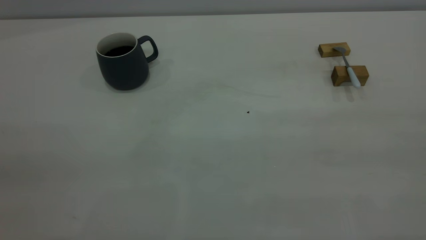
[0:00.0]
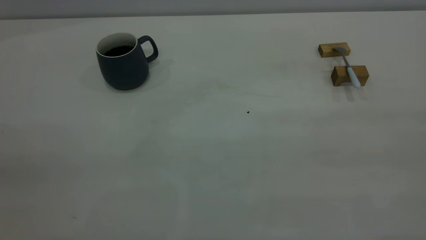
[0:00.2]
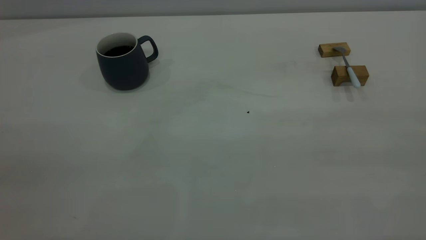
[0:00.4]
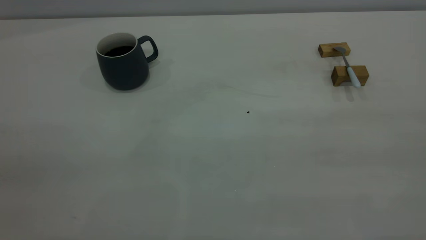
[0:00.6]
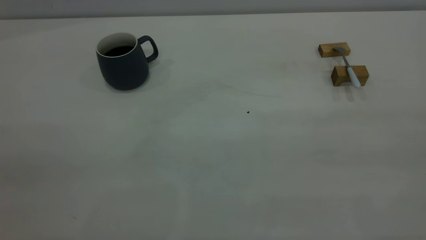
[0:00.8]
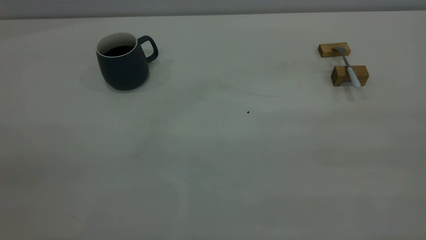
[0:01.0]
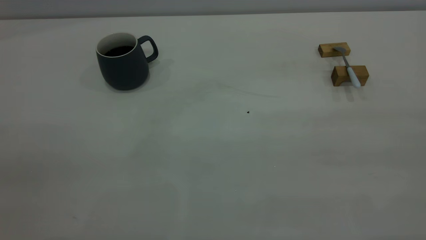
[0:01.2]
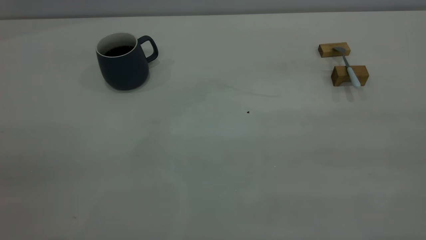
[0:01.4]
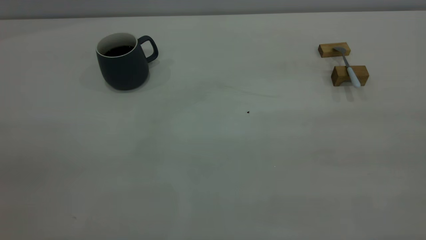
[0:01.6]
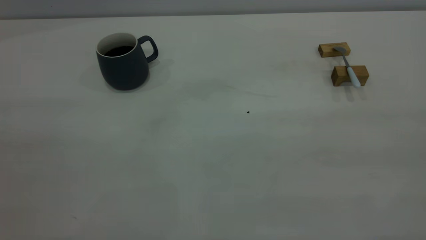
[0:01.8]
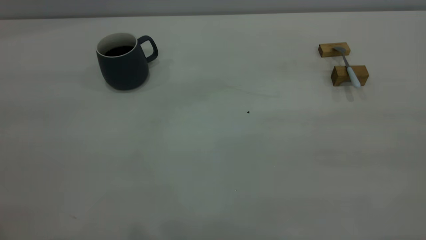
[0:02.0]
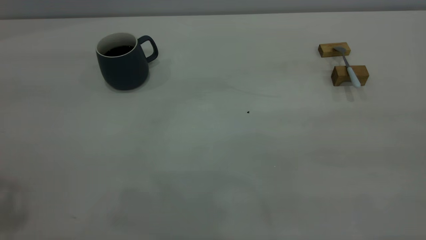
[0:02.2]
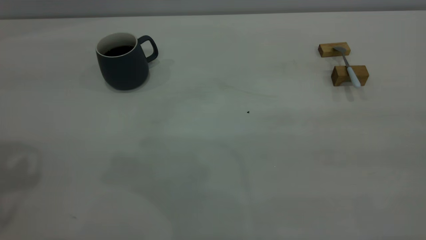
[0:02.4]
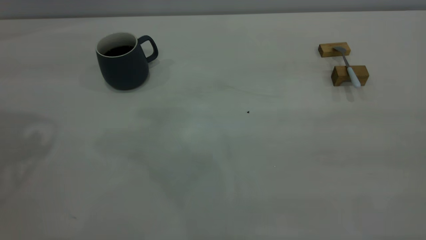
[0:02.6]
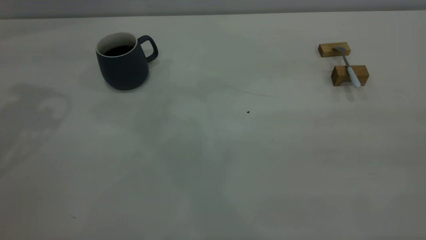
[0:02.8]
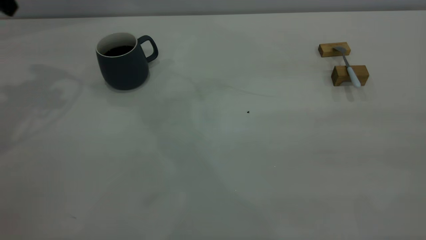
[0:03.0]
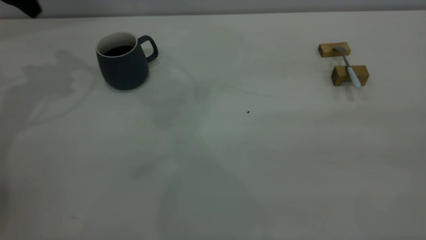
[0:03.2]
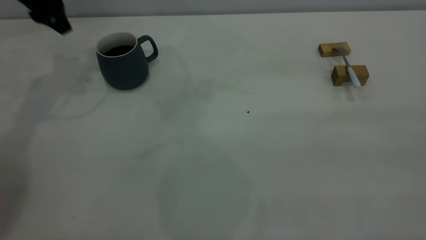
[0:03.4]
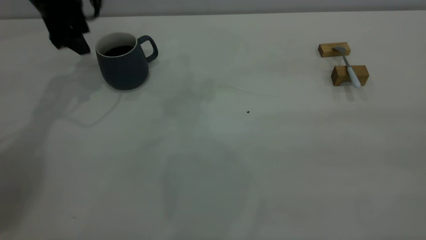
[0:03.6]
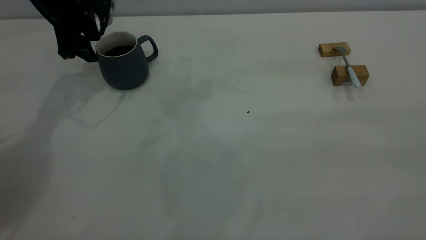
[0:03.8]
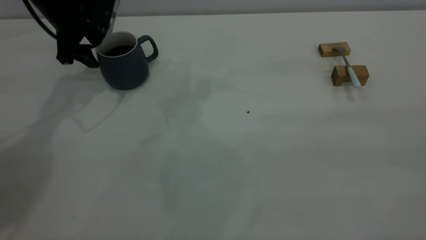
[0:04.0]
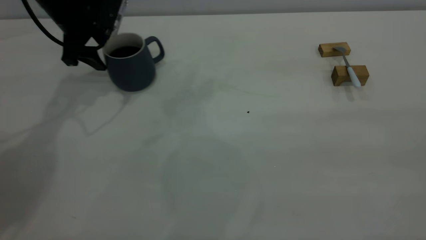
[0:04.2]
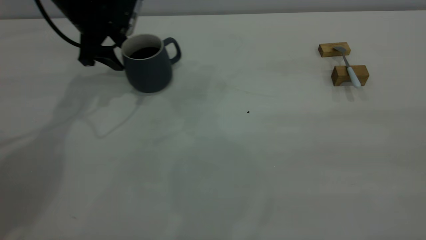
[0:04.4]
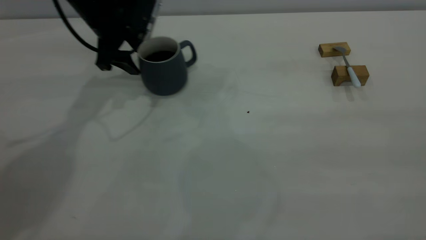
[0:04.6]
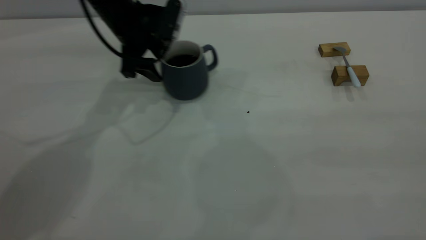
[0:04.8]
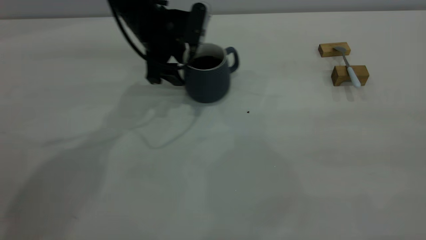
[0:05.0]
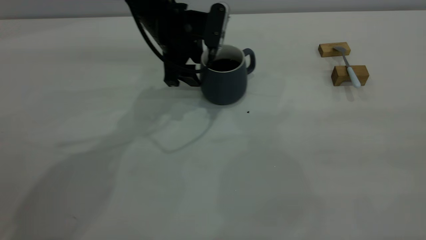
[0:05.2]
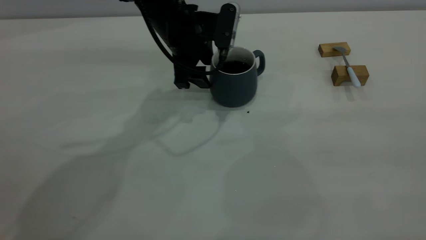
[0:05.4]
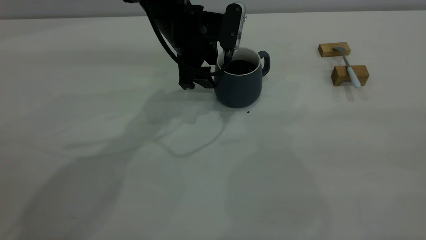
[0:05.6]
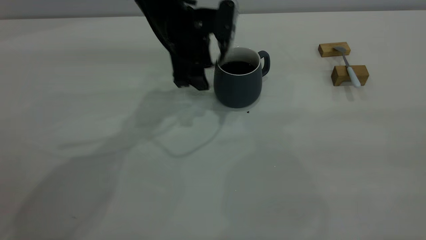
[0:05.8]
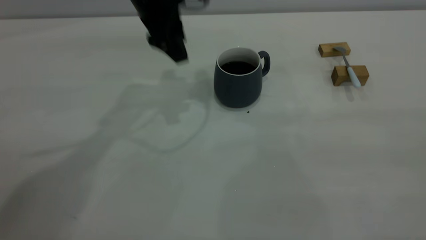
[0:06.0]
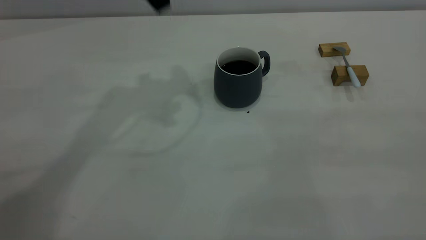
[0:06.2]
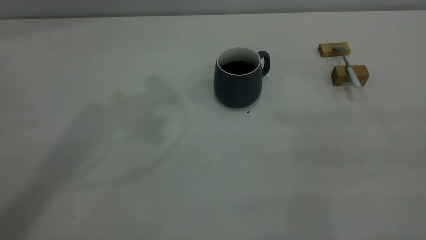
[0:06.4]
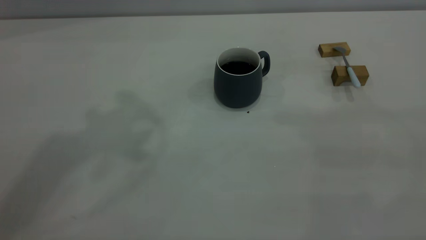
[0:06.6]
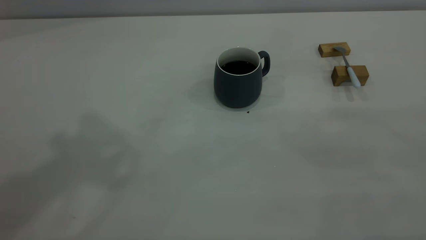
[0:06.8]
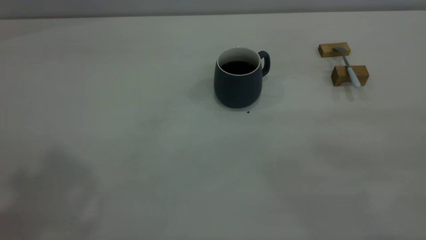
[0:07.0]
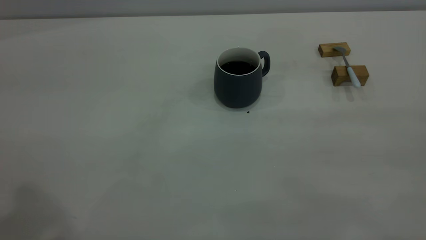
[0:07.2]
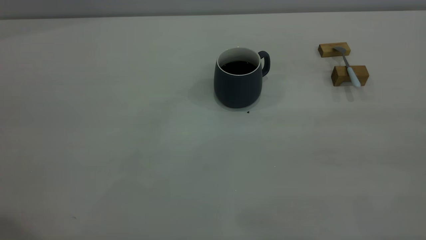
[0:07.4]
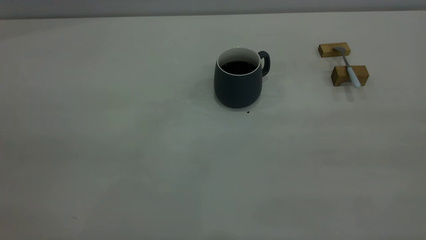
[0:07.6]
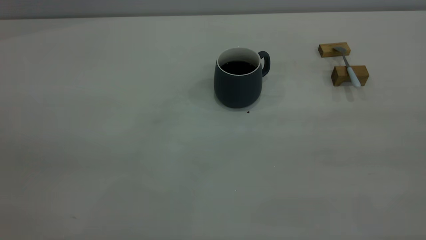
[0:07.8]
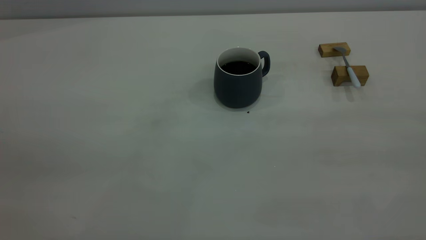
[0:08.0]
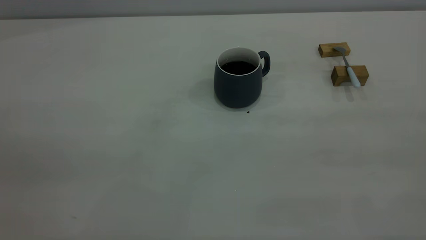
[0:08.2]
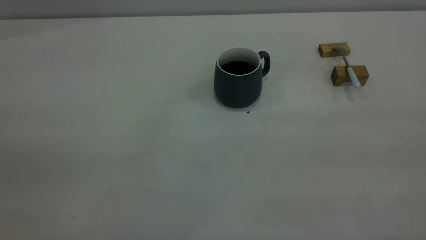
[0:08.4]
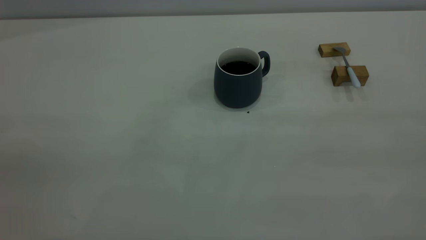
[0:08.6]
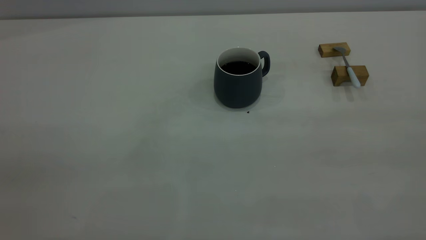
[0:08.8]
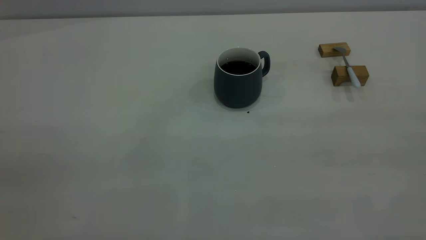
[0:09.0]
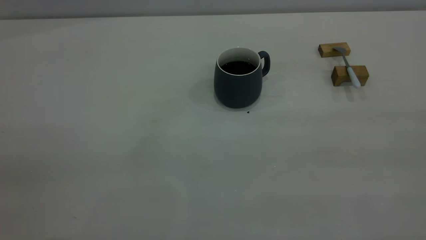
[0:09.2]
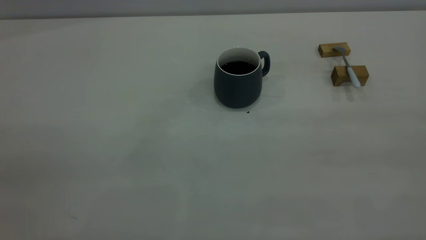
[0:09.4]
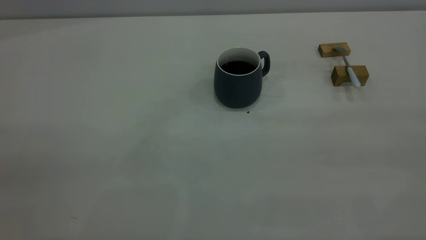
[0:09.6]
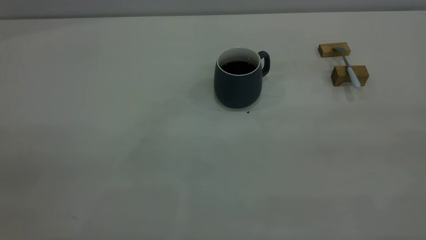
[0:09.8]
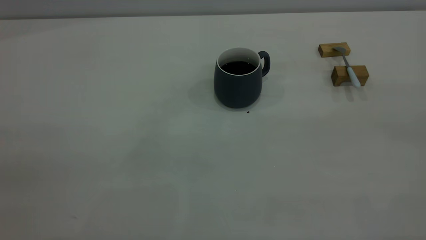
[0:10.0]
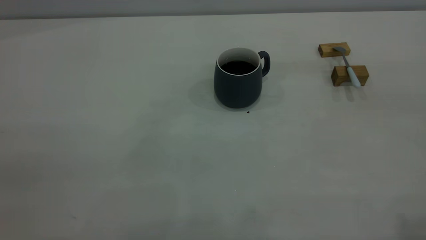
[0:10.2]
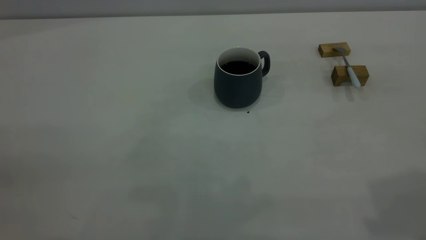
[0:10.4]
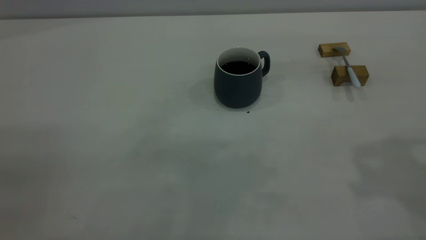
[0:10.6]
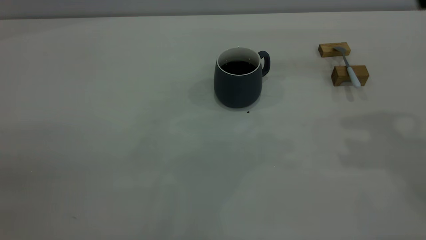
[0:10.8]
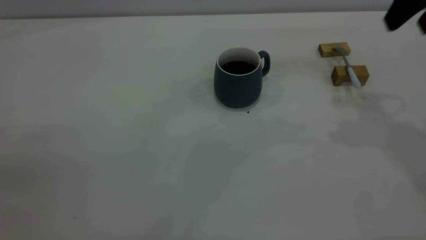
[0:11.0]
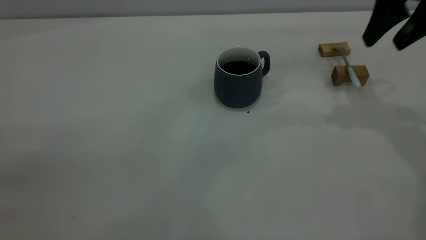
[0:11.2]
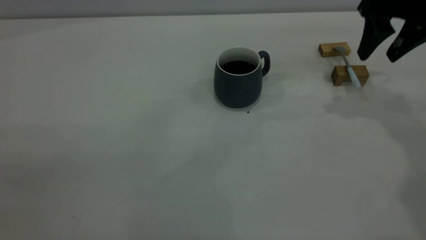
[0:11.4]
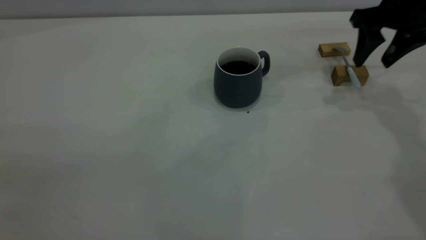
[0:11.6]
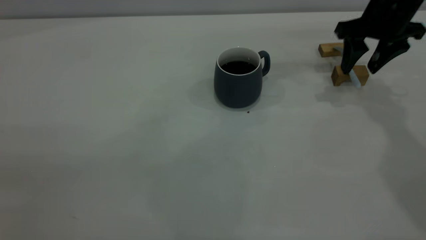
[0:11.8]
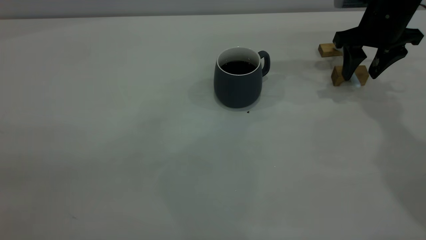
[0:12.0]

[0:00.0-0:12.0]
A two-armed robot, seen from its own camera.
Step, 0:00.0 to 0:05.8: Move the cup with coffee to the center of view.
0:00.0 to 0:01.6: Both grippers stay put.
0:03.0 to 0:04.4: The left gripper is displaced downward, to the right and forward by roughly 20 cm.
0:04.4 to 0:06.0: The left gripper goes some 15 cm to the right and upward.
0:06.0 to 0:07.6: The left gripper shifts approximately 40 cm backward, to the left and upward.
0:10.4 to 0:12.0: The right gripper goes roughly 35 cm forward and downward.

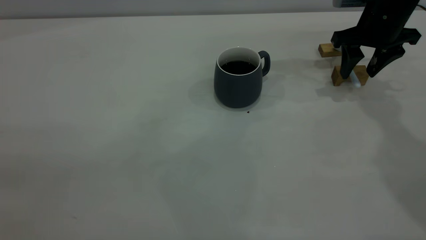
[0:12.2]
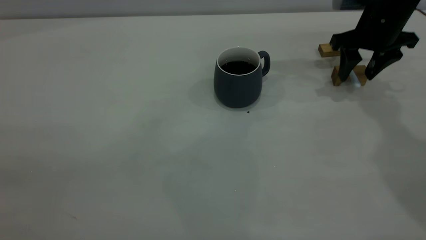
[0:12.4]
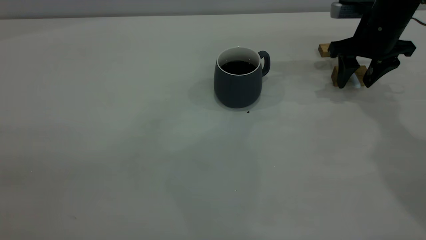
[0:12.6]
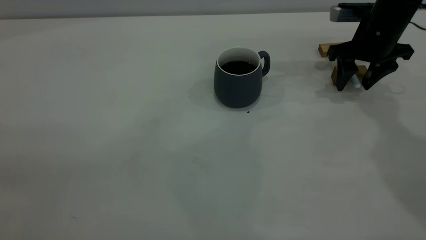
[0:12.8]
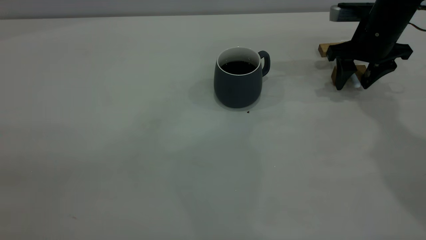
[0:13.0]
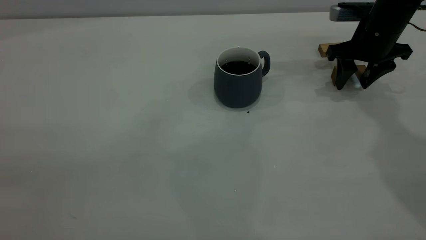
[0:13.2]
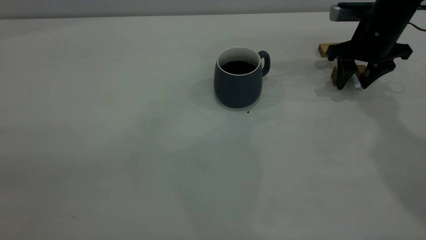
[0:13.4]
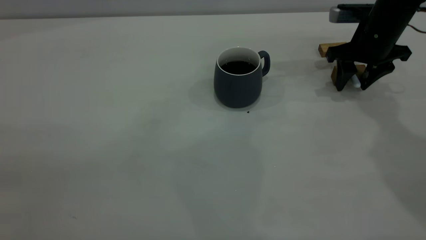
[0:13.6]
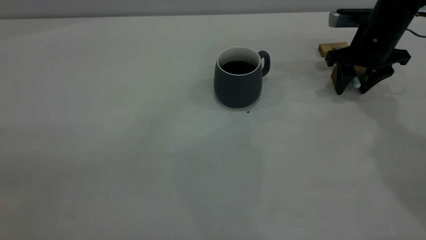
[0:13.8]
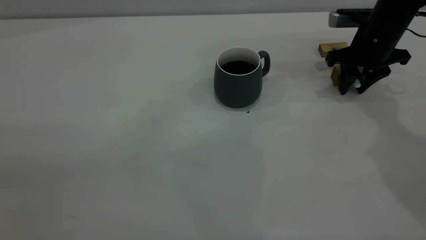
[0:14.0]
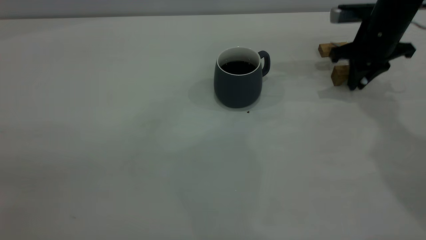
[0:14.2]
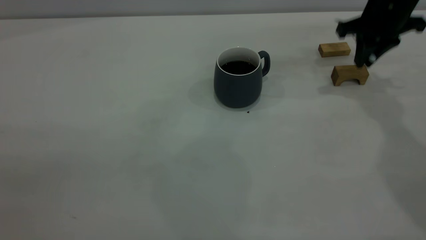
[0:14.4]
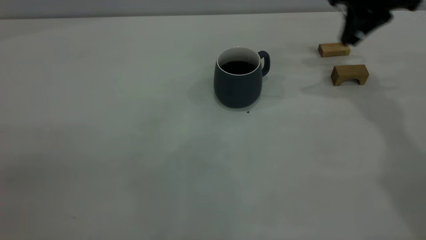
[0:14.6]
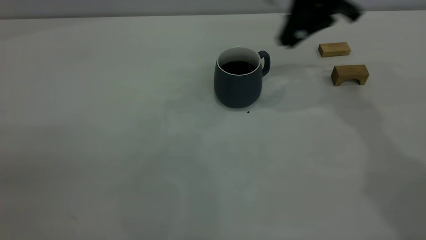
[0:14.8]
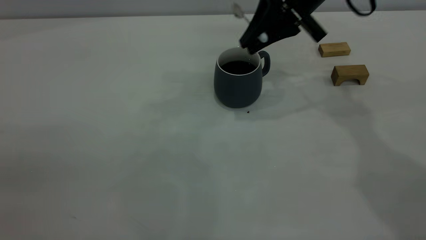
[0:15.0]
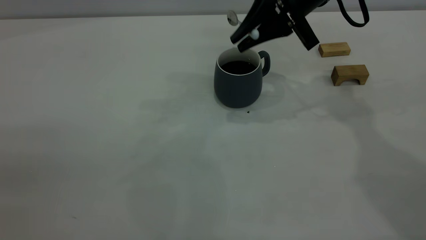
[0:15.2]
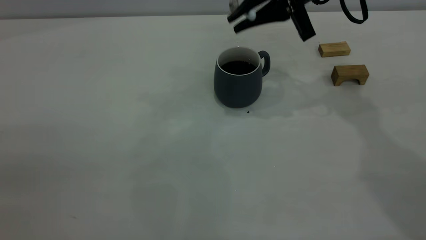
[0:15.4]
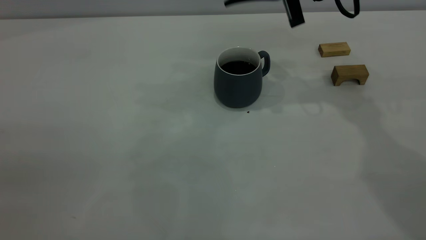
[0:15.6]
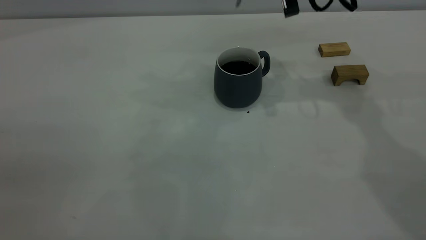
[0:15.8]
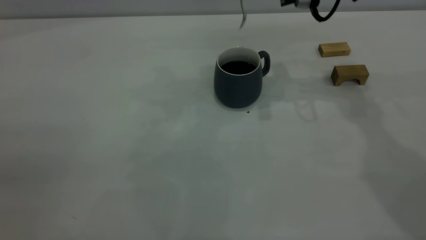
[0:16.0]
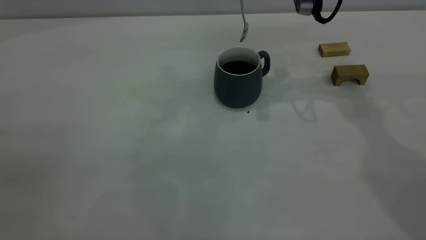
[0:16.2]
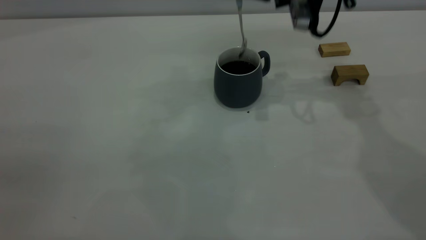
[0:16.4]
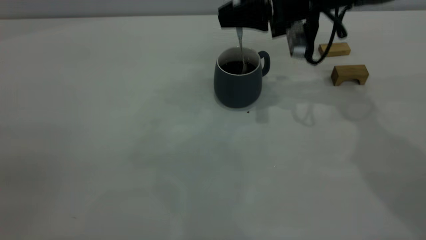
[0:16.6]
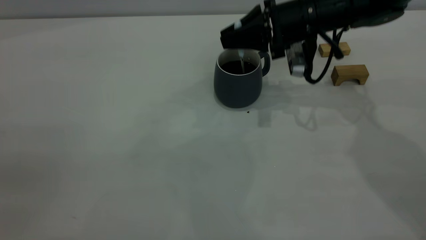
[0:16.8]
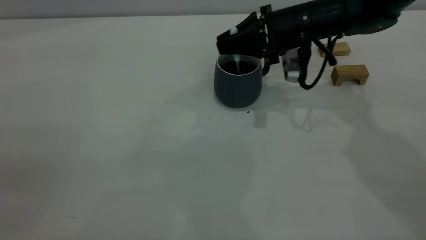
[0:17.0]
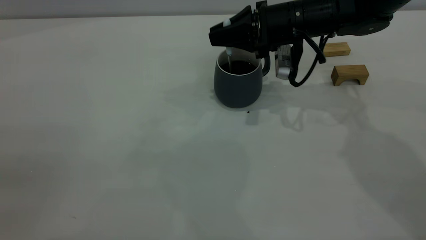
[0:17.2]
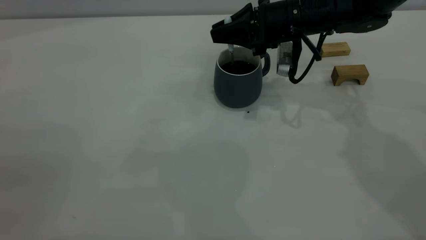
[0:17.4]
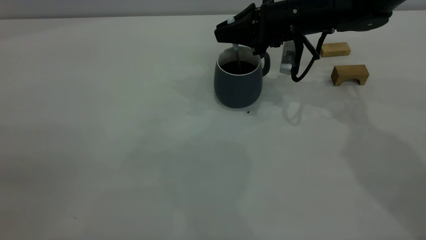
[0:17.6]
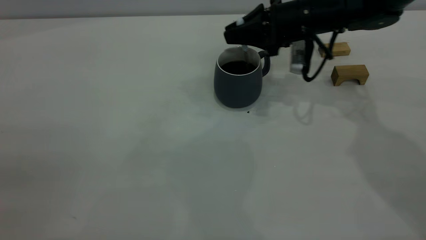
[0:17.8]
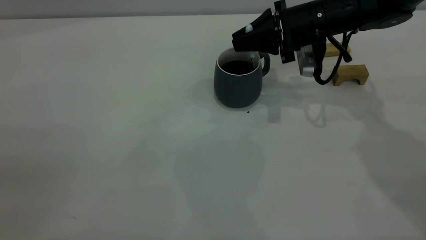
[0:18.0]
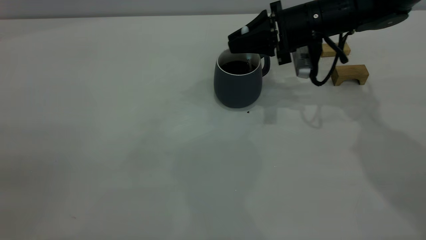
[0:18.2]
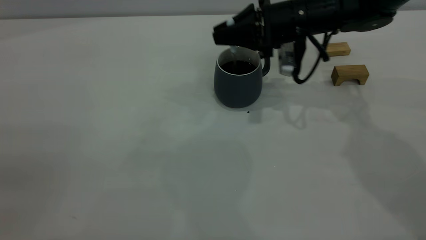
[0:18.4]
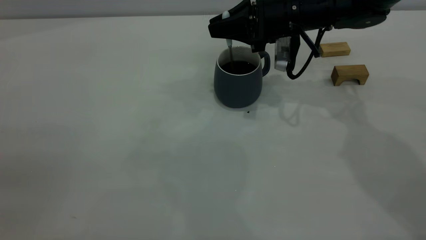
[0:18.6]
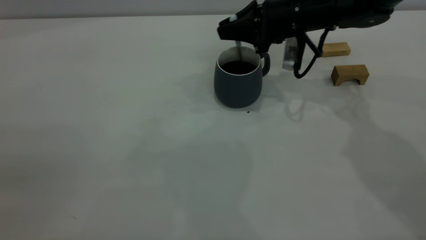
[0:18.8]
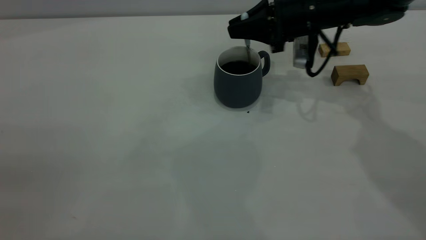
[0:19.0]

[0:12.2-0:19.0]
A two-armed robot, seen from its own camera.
Step, 0:12.2 to 0:14.4: Pick up the spoon.
0:12.2 to 0:13.6: The grippers make only small movements.
0:13.6 to 0:15.0: The right gripper shifts roughly 15 cm to the left and upward, and closes.
0:16.2 to 0:17.6: The right gripper heads downward, covering roughly 10 cm.
0:17.6 to 0:19.0: The grippers stay close to where they were, moving slightly.
